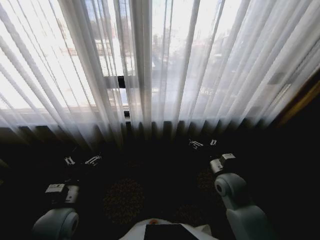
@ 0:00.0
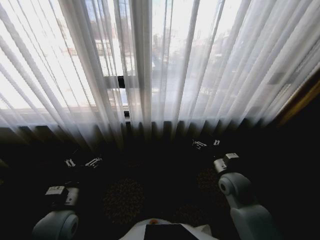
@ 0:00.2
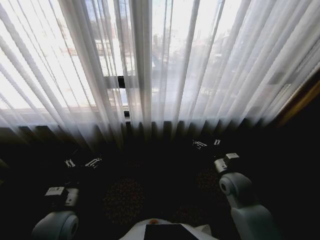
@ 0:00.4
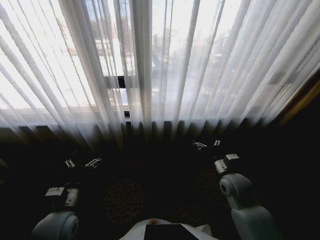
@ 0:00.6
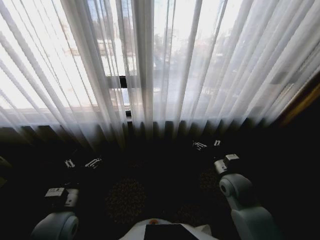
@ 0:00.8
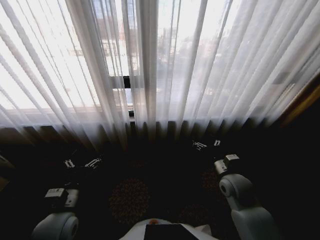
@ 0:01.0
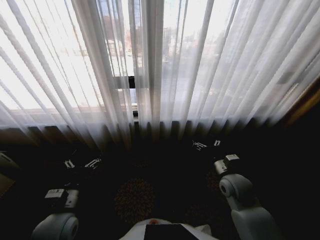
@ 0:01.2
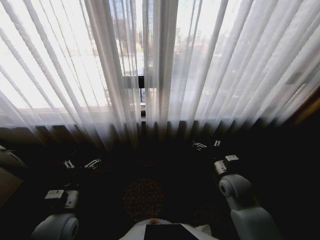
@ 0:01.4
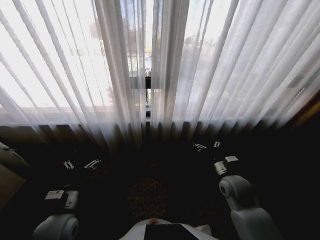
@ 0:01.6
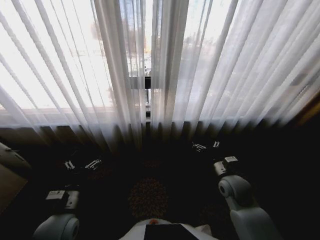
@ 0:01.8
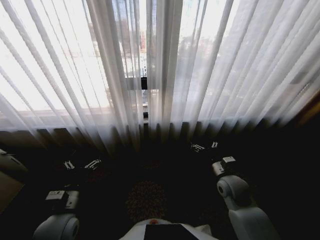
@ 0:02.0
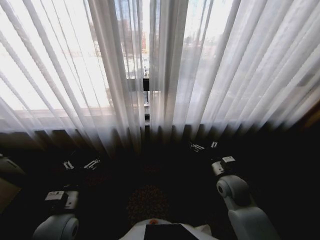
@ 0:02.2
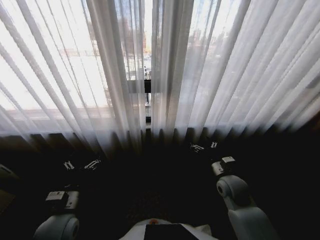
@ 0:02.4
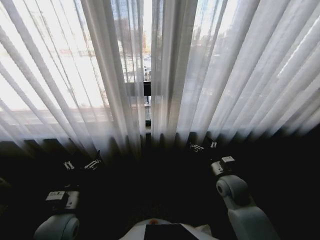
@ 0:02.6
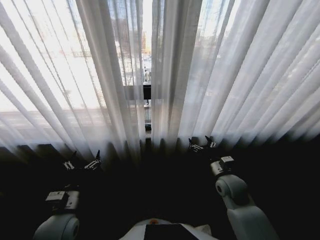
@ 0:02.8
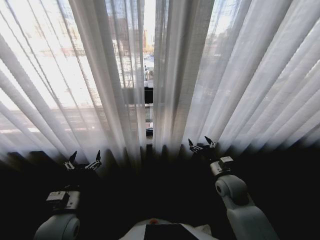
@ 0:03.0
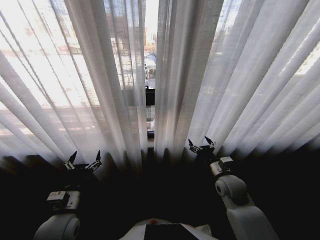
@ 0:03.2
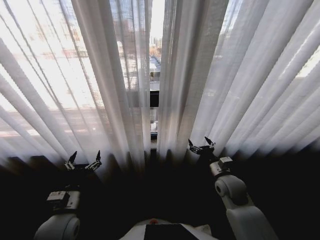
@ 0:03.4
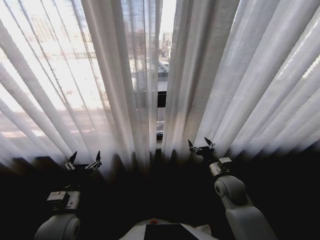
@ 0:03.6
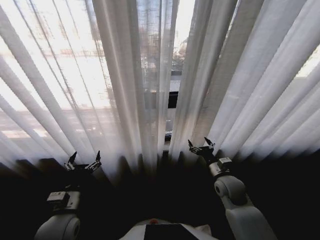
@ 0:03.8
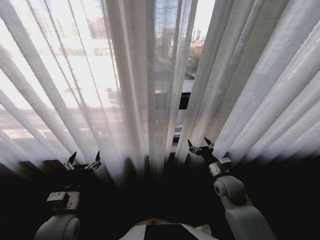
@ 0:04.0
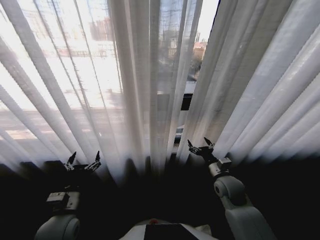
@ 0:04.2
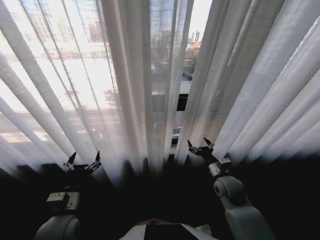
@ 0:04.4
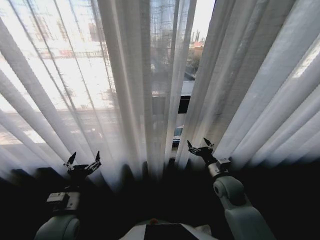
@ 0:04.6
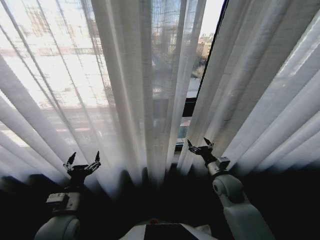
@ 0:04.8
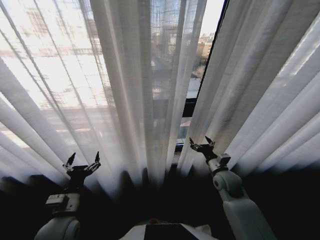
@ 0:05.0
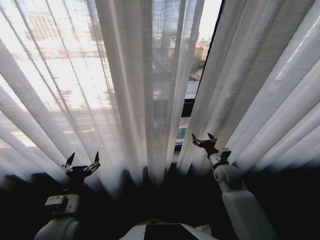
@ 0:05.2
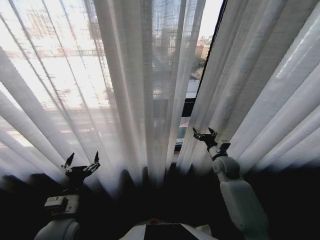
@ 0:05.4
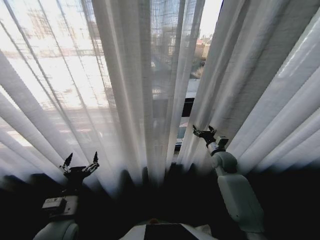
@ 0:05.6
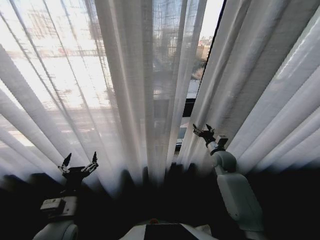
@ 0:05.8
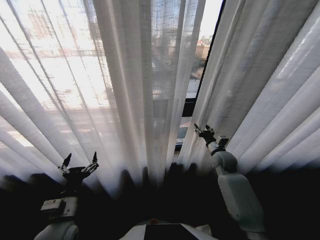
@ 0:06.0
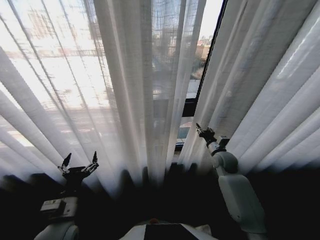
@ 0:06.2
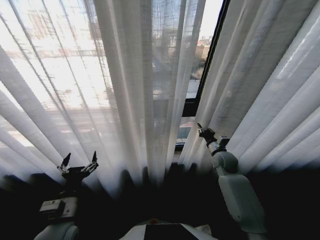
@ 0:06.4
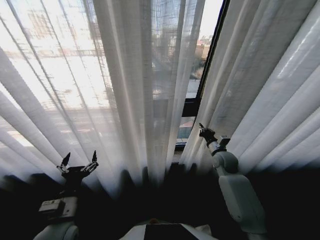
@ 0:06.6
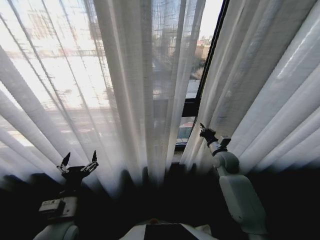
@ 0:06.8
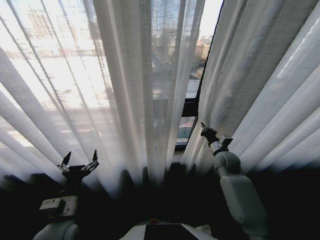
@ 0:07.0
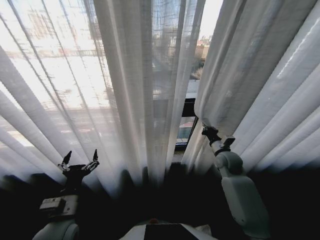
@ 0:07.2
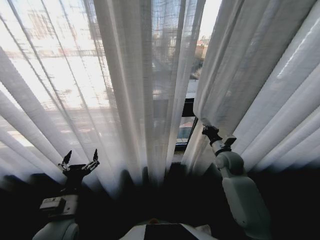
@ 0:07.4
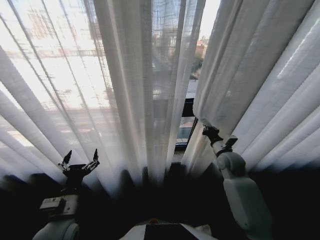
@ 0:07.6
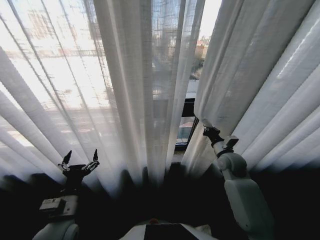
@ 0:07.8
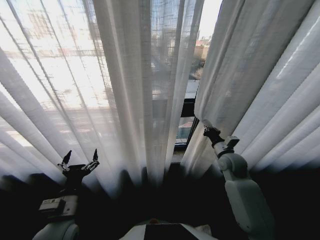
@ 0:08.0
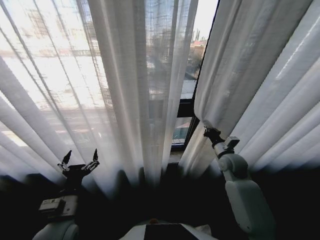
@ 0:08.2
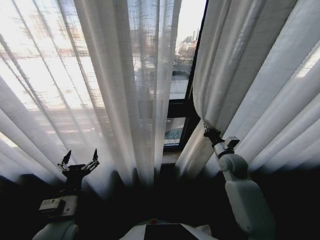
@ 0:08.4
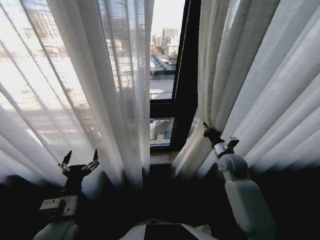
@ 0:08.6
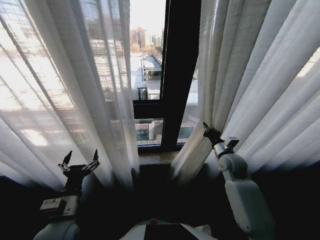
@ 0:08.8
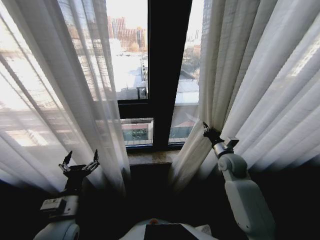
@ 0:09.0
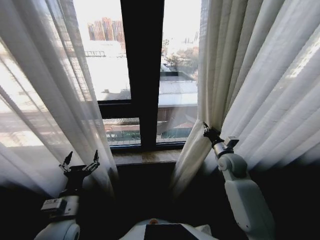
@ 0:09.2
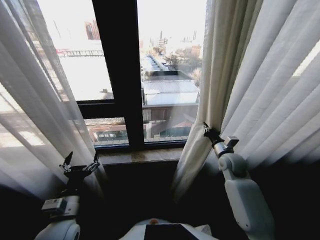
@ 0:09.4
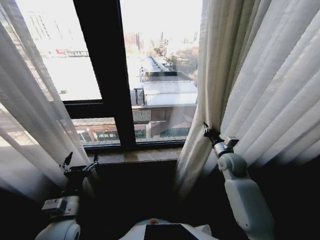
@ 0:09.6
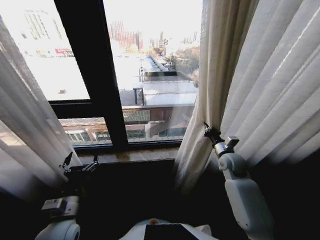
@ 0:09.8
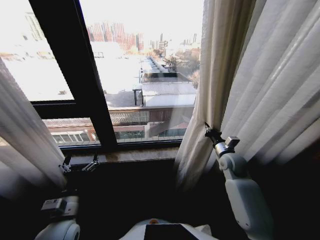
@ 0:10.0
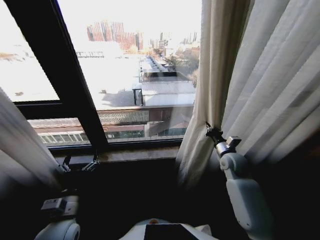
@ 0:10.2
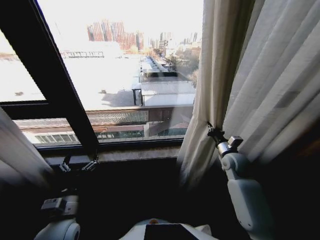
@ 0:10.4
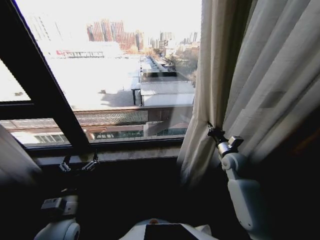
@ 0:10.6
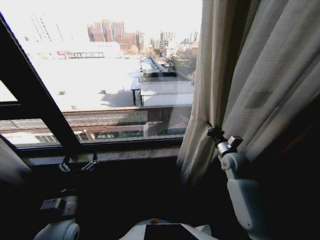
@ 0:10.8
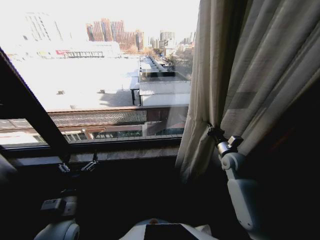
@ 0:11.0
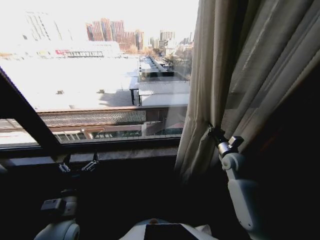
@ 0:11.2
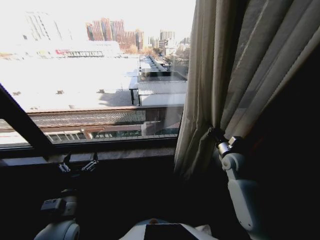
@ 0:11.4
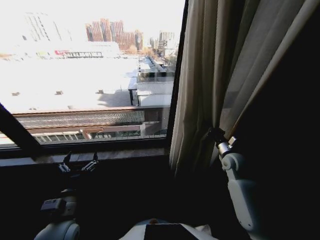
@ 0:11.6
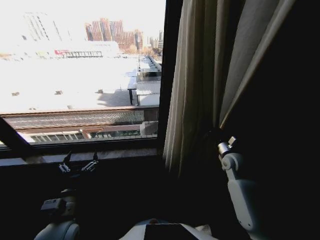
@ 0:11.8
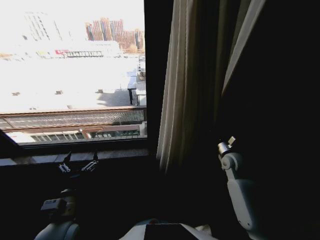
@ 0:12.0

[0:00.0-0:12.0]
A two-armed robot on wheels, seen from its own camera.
Task of the whole recording: Open the curtains by pulling them apart, changing their state from closed to fully open.
0:04.4 to 0:06.0: The right gripper travels forward by some 10 cm.
0:06.0 to 0:07.6: The right gripper closes its fingers.

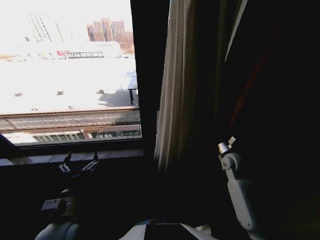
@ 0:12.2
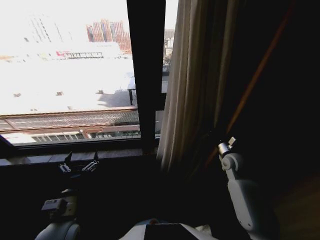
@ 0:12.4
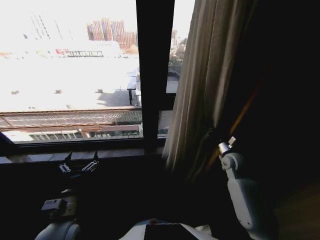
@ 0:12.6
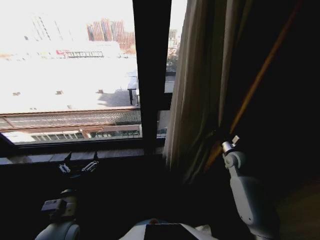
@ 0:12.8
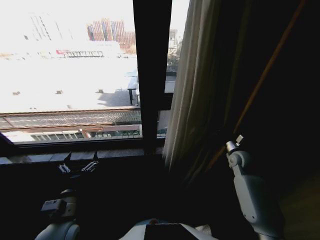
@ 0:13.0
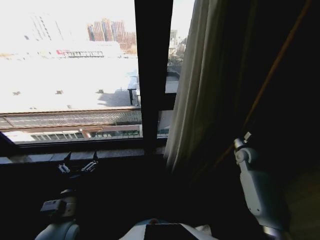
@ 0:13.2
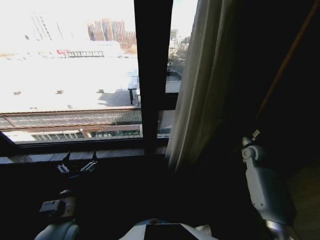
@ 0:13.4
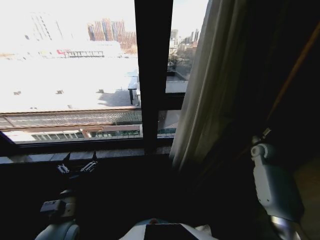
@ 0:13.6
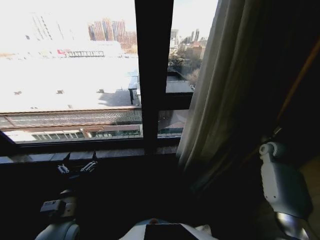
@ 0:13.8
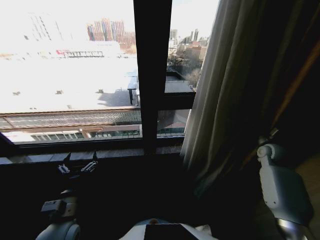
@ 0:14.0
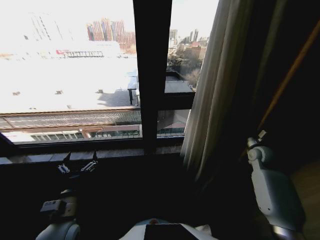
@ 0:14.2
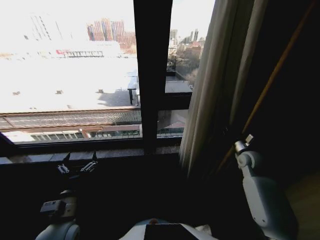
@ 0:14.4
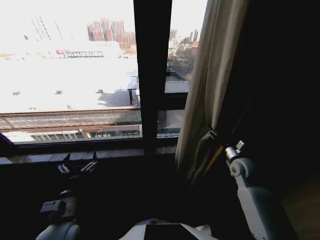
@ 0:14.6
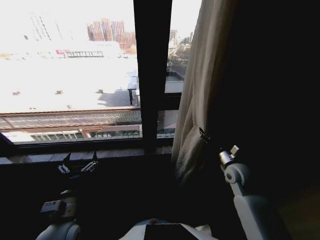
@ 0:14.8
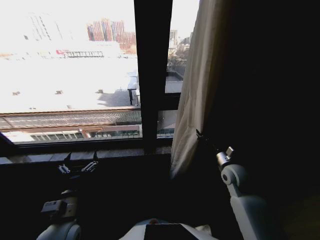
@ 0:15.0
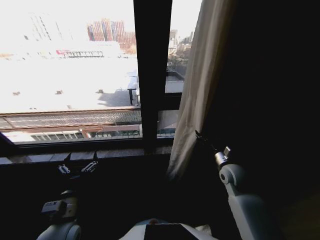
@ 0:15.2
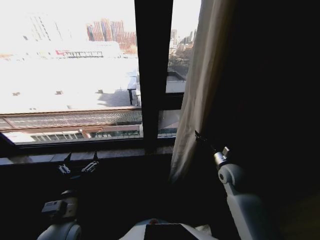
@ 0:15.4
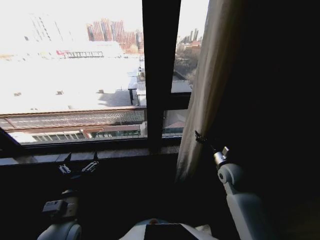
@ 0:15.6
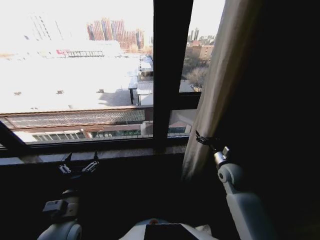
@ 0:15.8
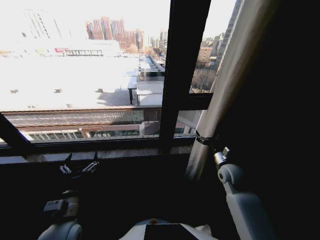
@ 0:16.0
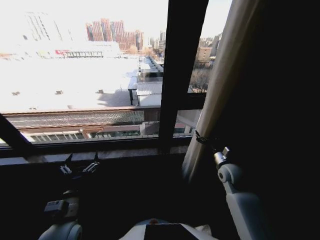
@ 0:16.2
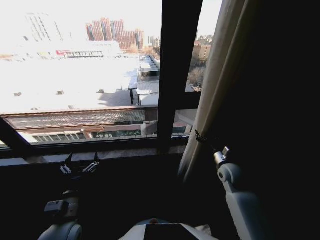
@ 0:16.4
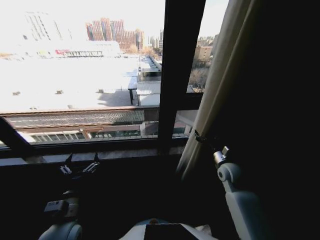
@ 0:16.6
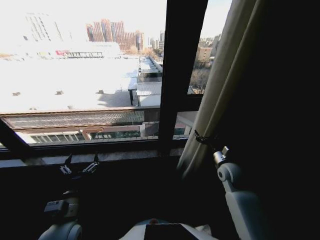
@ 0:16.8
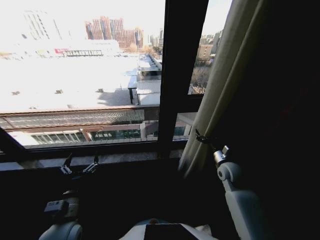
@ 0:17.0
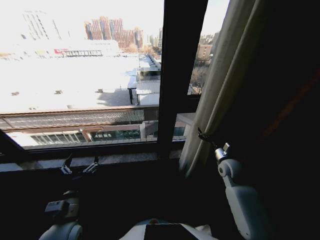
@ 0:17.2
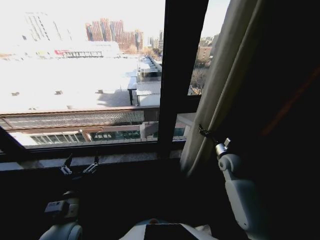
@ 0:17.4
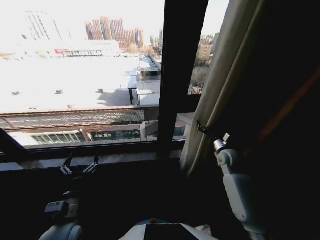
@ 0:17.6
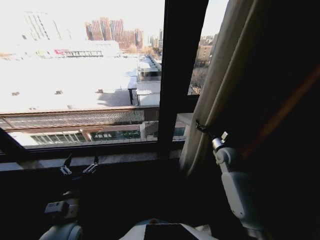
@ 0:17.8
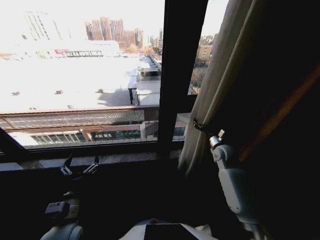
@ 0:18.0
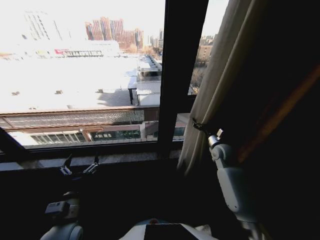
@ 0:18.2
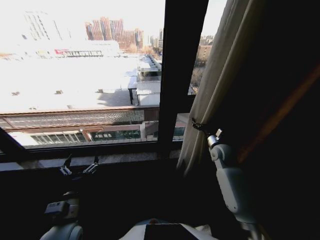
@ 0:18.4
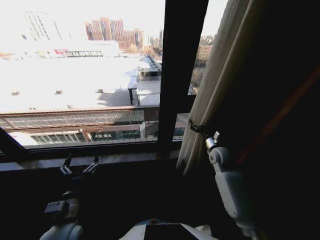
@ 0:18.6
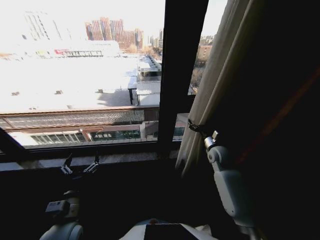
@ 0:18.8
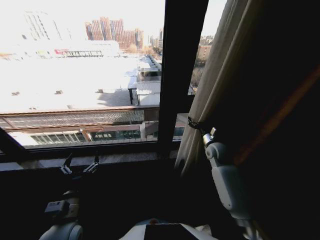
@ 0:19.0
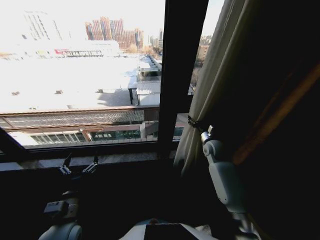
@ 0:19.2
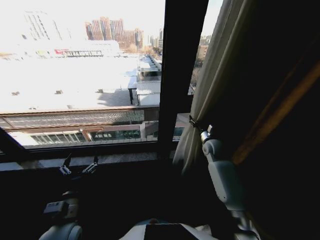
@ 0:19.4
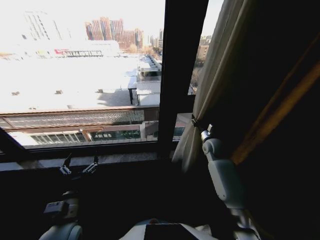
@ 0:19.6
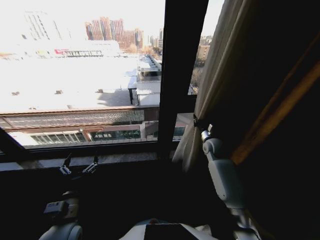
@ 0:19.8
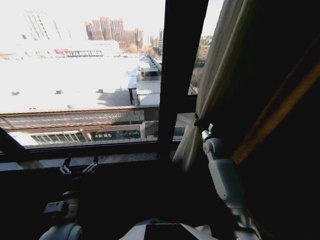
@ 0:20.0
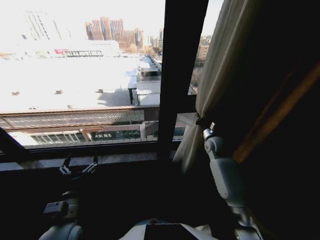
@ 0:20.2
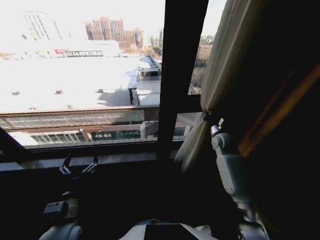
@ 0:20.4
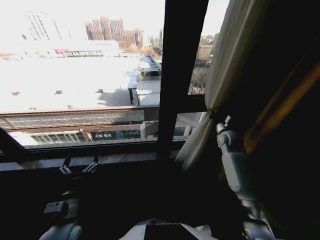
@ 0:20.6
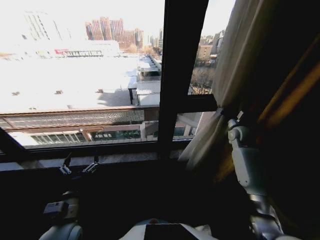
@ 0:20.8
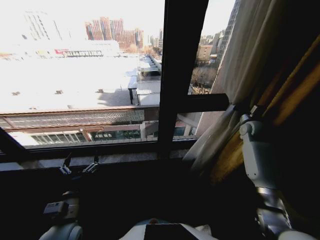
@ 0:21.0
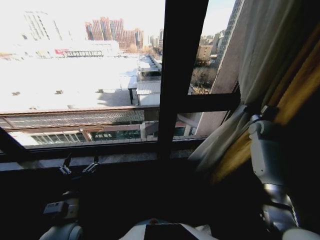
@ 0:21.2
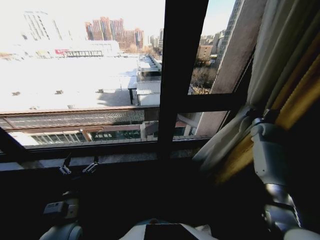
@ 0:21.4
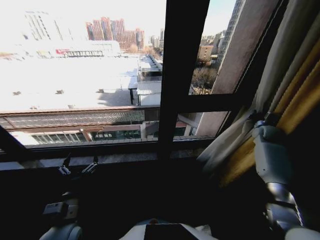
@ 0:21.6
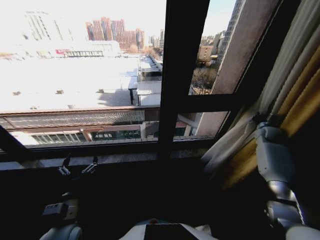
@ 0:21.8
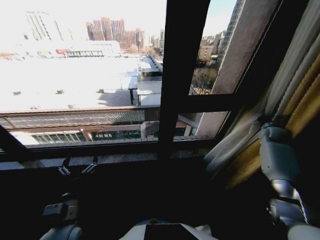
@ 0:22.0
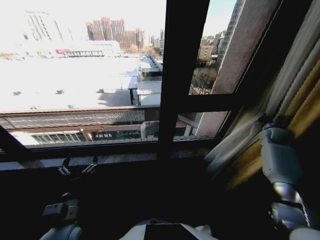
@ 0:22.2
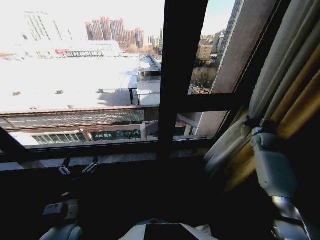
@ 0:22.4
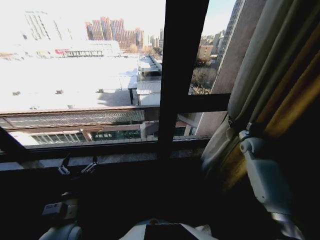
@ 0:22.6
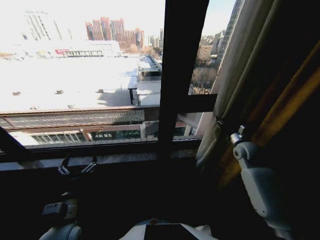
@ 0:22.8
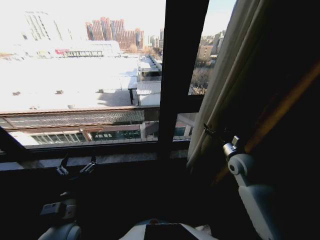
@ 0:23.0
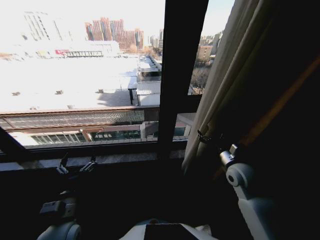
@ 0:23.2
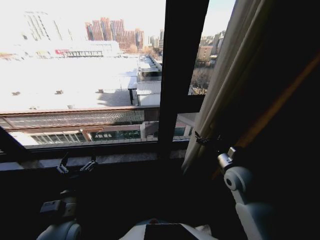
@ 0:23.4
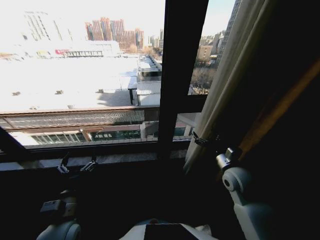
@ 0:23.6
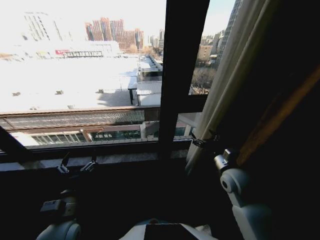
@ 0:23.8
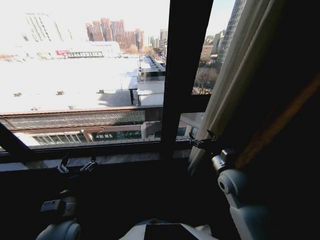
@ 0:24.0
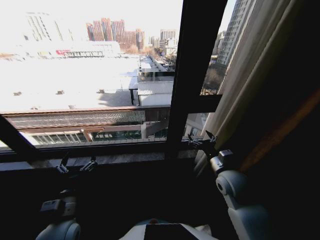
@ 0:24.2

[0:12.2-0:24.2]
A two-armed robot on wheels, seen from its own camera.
Task of the whole recording: Open the curtains by pulling them apart, changing their state from closed to fully open.
0:12.2 to 0:13.8: The right gripper travels to the right by some 20 cm.
0:13.8 to 0:15.2: The right gripper shifts some 25 cm to the left and backward, and opens up.
0:15.2 to 0:16.6: The grippers stay close to where they were, moving slightly.
0:16.6 to 0:18.2: The right gripper is displaced forward by some 10 cm.
0:18.2 to 0:19.8: The right gripper closes up.
0:19.8 to 0:21.2: The right gripper shifts about 20 cm to the right.
0:21.2 to 0:22.6: The right gripper heads backward, to the left and downward, covering approximately 10 cm, and opens up.
0:22.6 to 0:24.2: The right gripper is displaced to the left and backward by approximately 25 cm, and opens.
